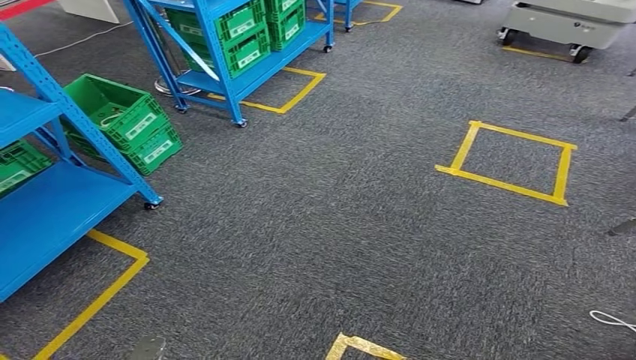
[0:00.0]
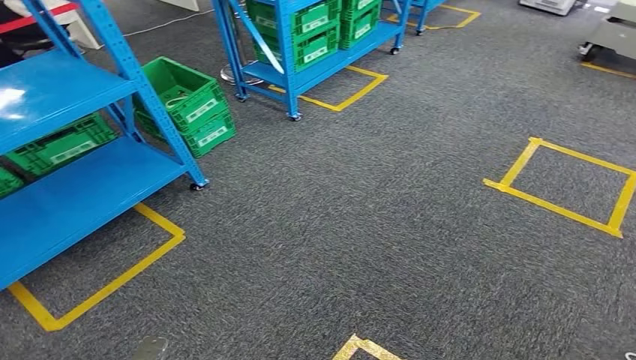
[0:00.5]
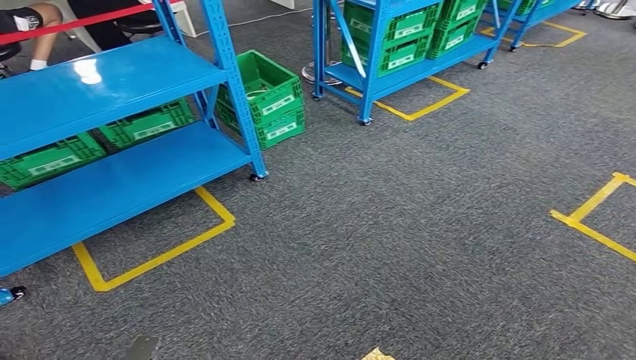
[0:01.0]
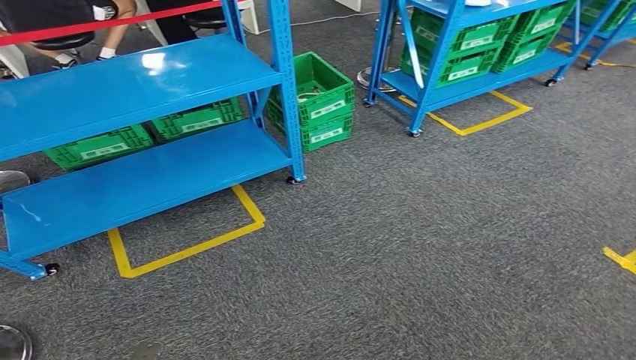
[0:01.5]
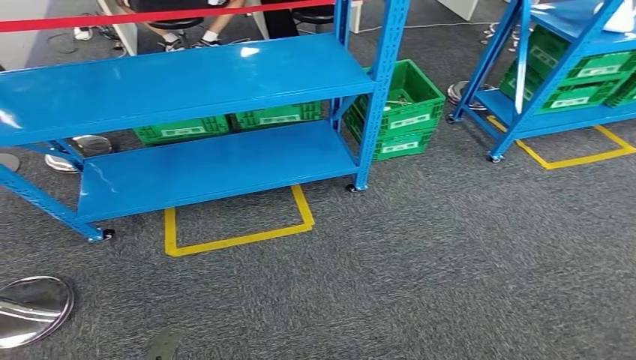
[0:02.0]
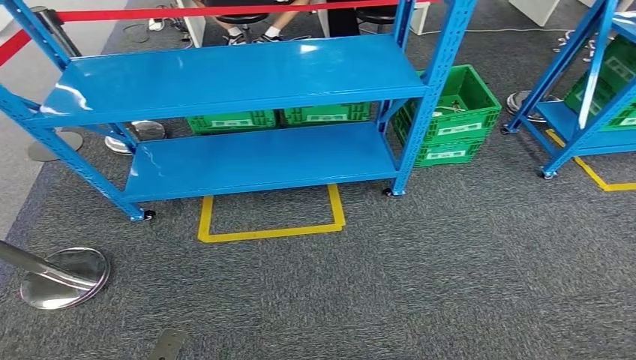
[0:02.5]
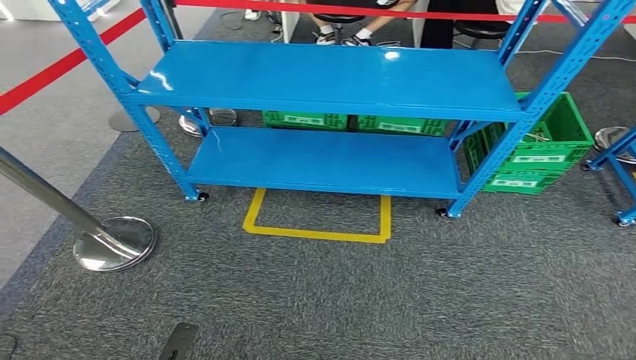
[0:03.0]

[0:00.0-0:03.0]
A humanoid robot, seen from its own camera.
Step, 0:00.0 to 0:03.0: Return to the initial position at the workbench.

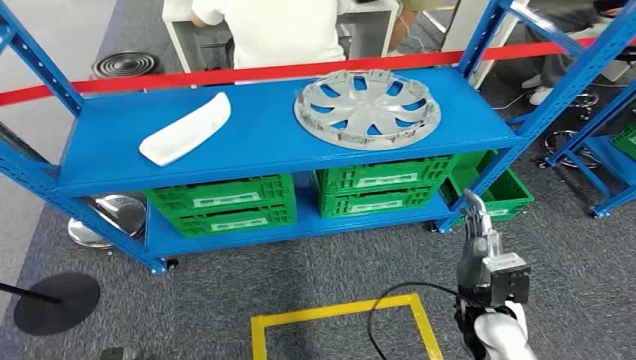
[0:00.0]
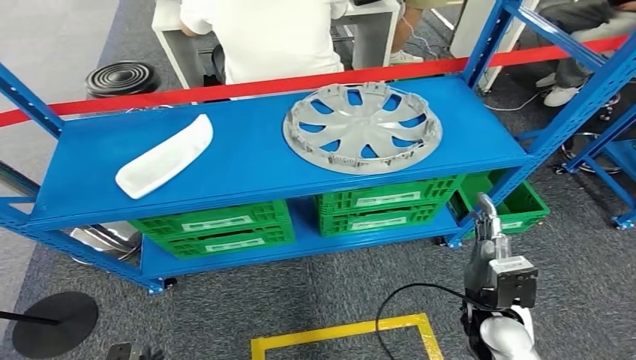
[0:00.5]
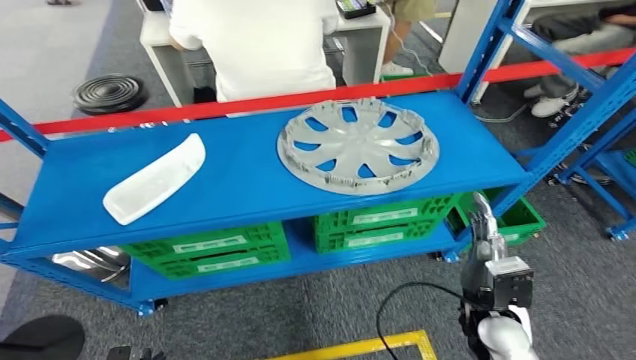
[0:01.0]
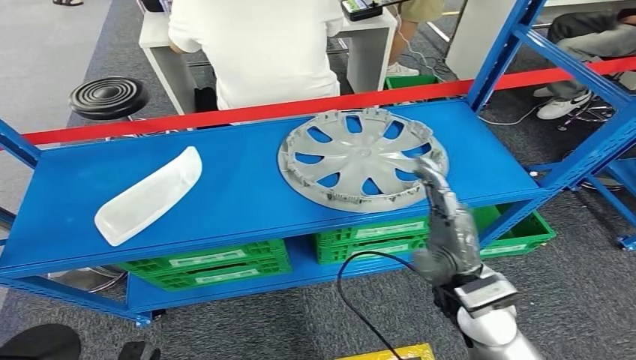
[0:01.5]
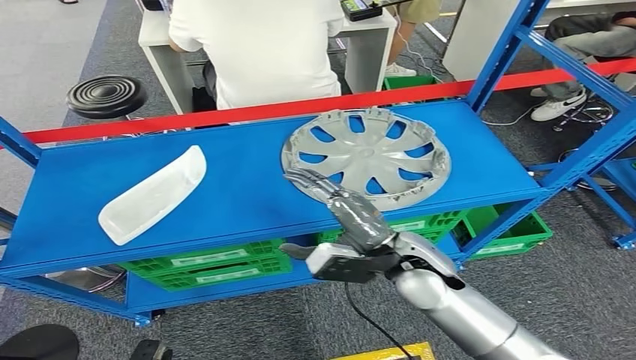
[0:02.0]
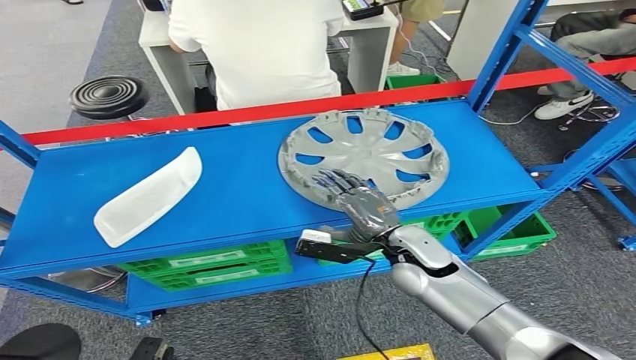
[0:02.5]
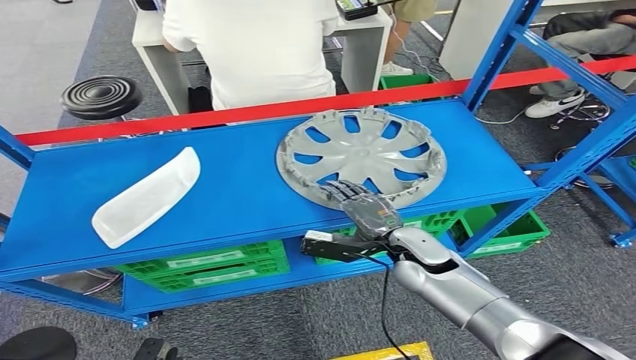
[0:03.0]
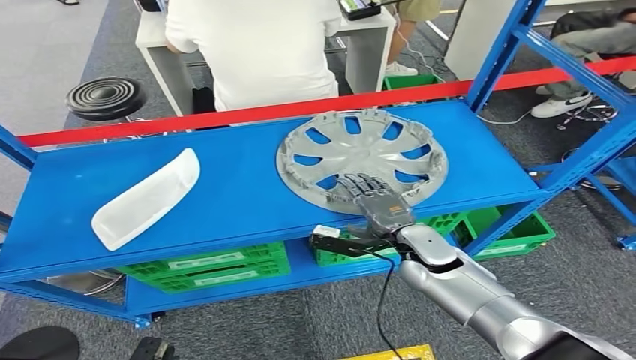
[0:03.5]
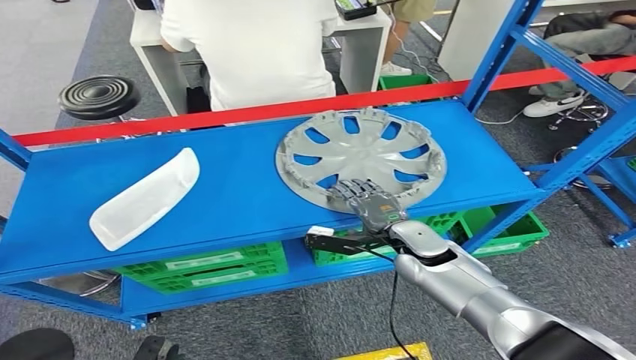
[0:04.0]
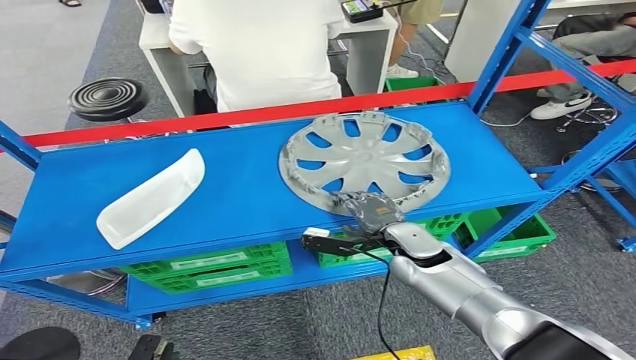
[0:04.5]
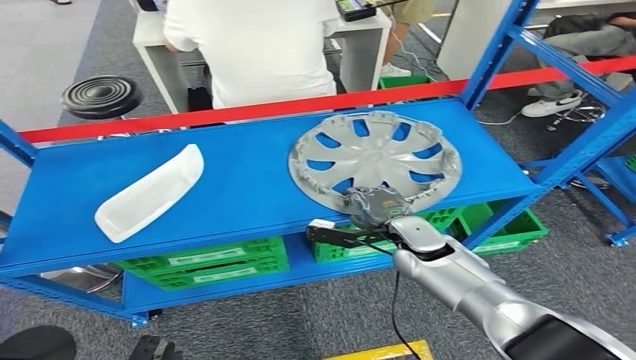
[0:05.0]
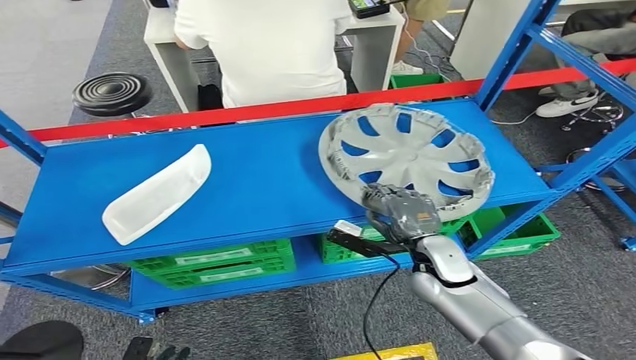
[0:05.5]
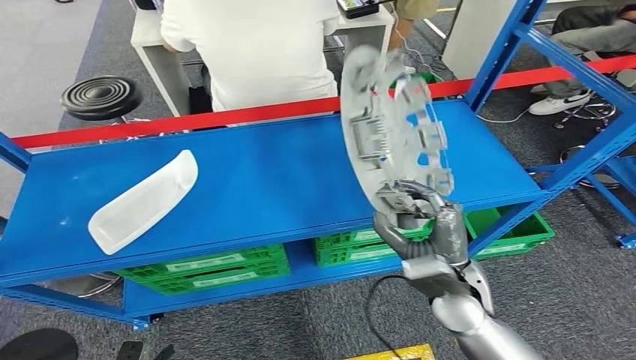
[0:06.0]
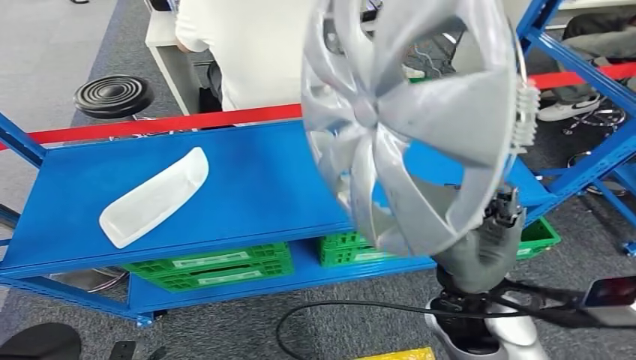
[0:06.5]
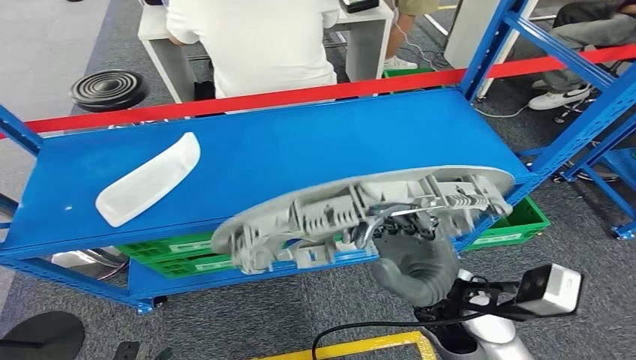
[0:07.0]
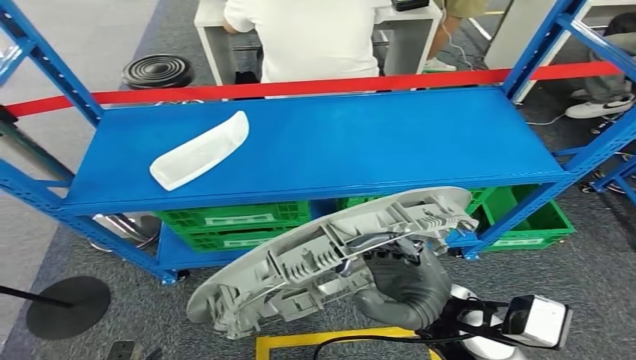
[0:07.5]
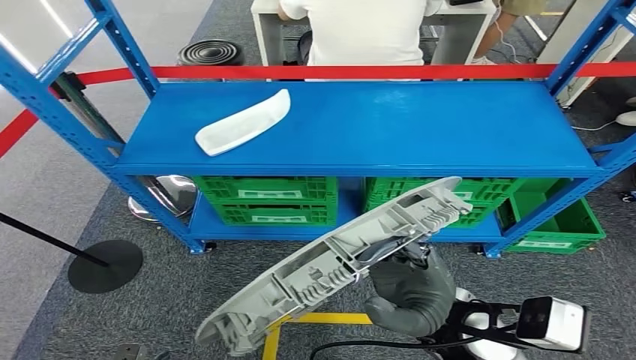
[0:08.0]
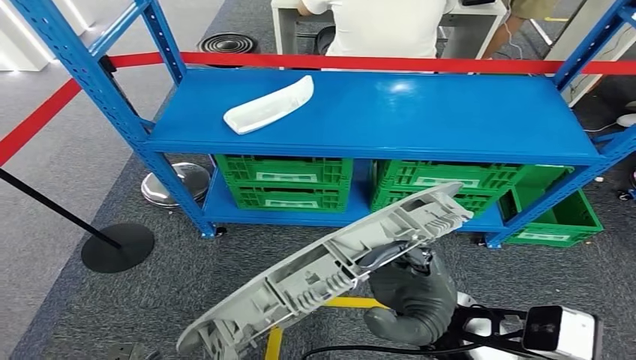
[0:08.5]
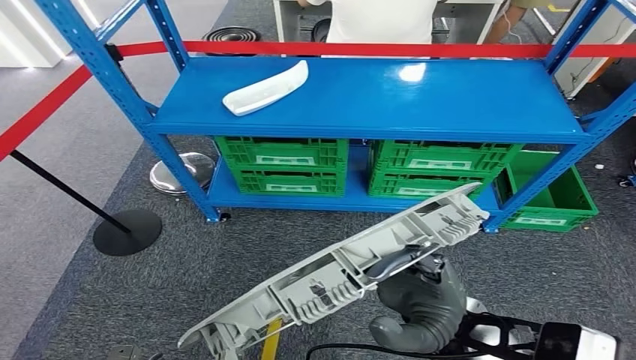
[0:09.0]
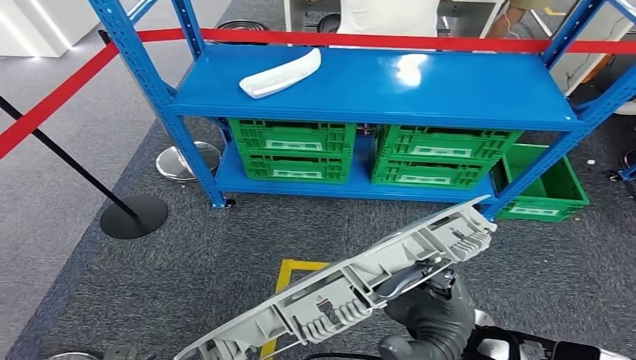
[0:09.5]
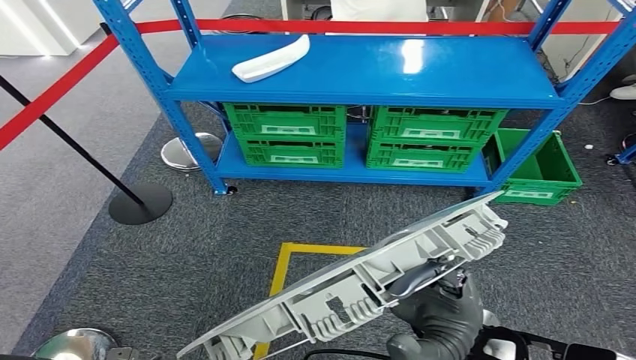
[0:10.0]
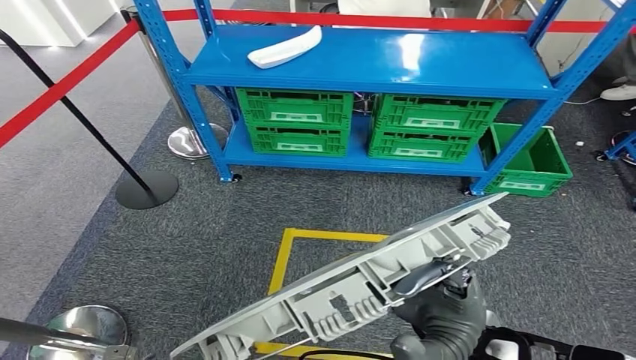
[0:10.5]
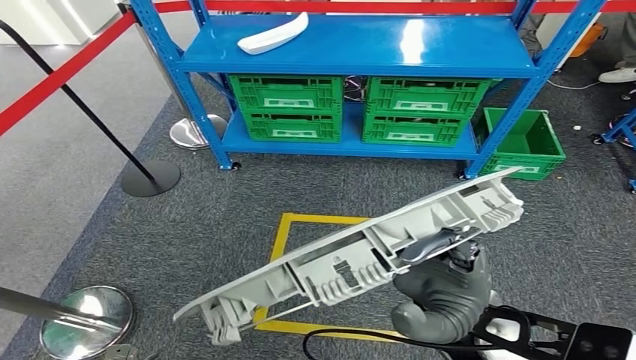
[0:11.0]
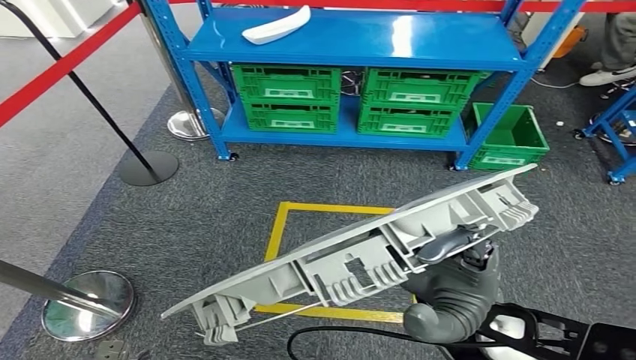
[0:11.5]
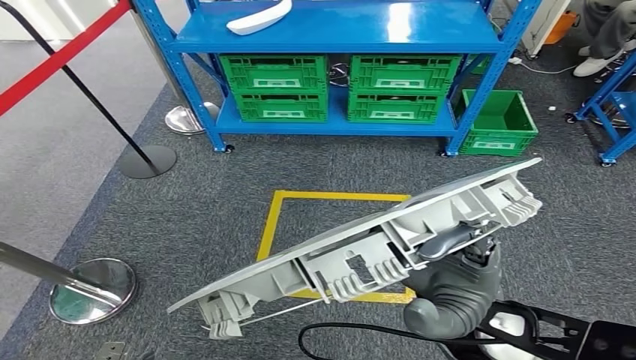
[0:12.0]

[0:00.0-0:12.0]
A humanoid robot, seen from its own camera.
Step, 0:00.0 to 0:08.0: Pick up the small component from the shelf.

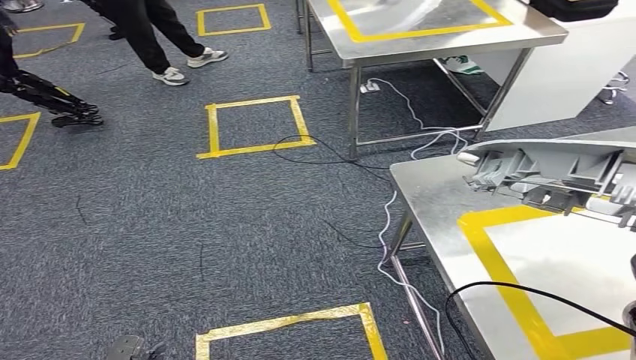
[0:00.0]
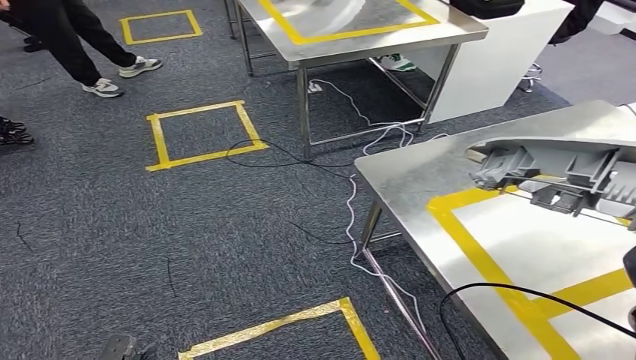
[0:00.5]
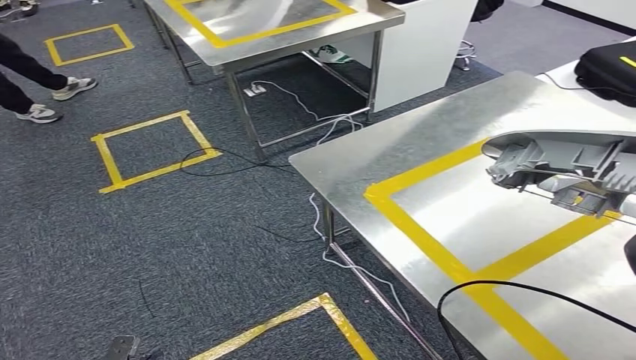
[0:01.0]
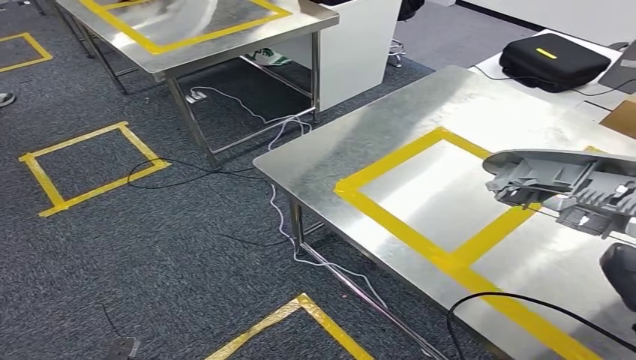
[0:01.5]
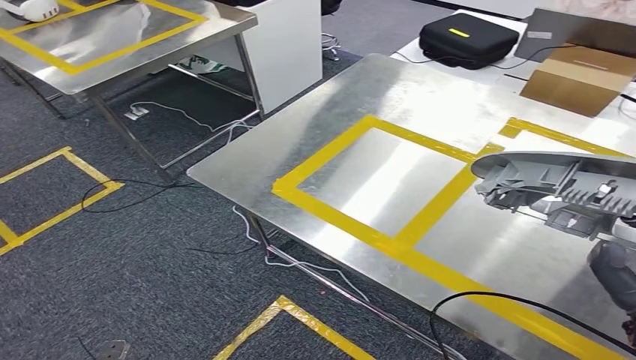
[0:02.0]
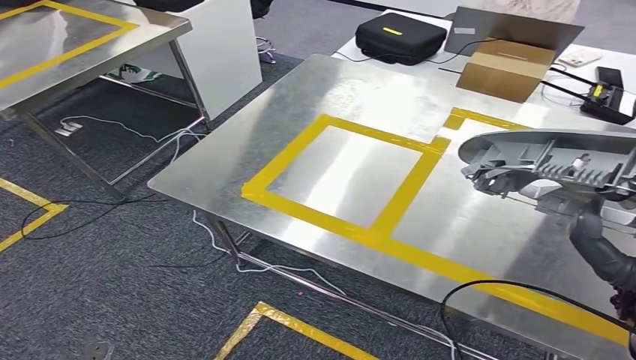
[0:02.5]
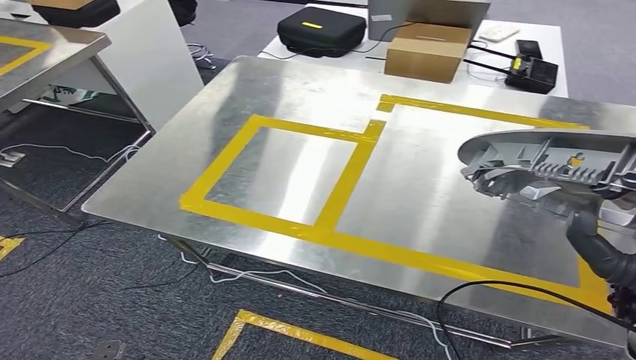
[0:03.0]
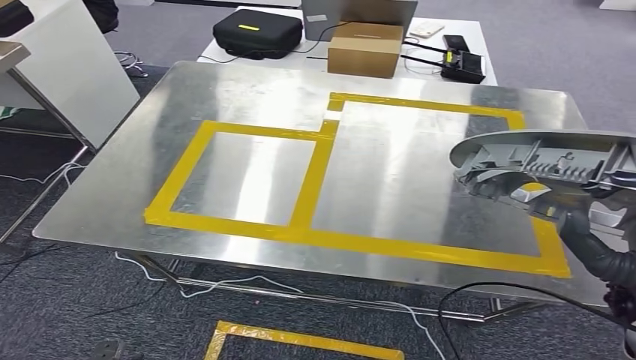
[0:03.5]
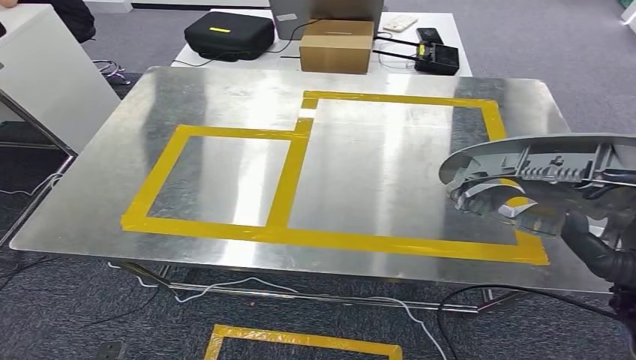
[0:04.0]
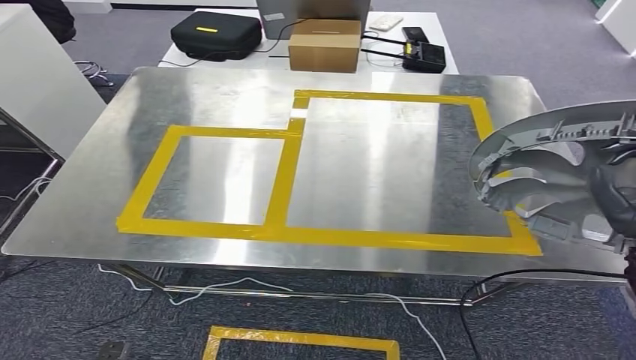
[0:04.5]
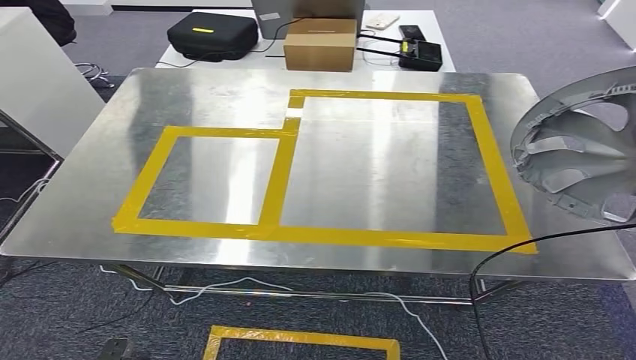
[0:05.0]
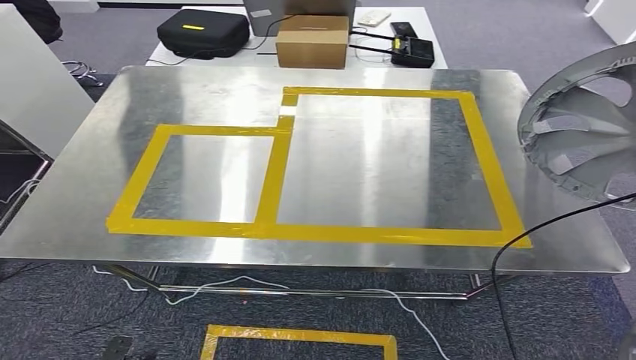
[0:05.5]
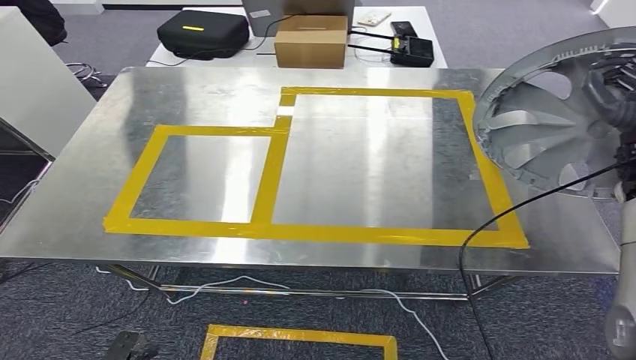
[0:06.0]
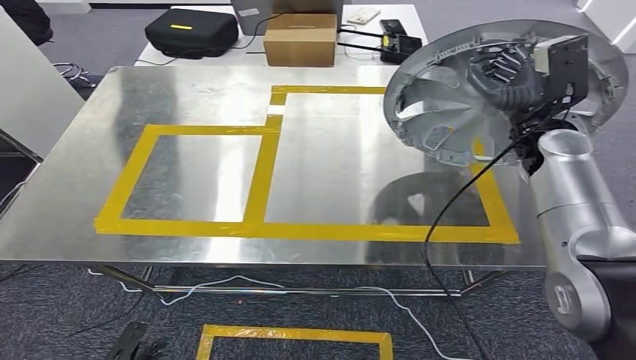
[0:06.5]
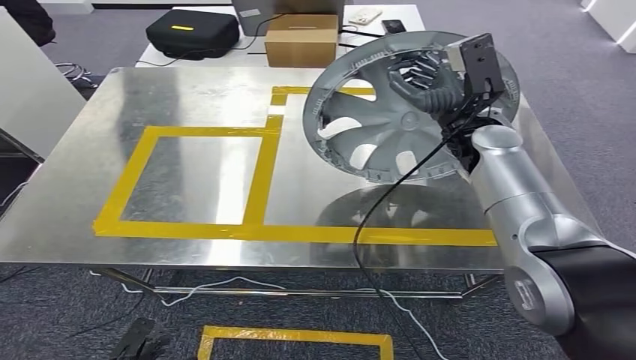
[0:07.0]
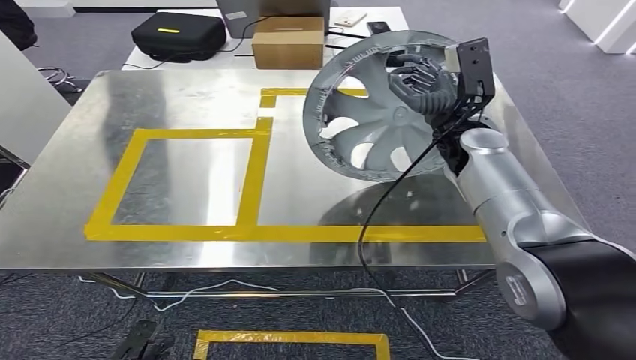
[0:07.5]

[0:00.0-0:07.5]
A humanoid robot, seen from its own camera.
Step, 0:00.0 to 0:02.5: Move the small component to the workbench.
